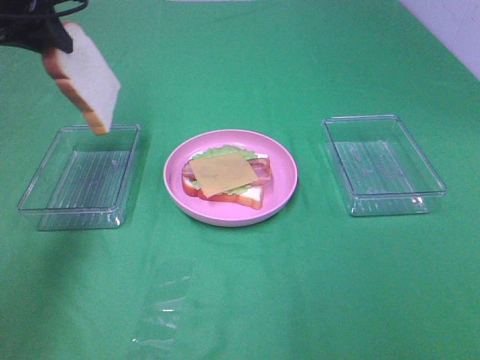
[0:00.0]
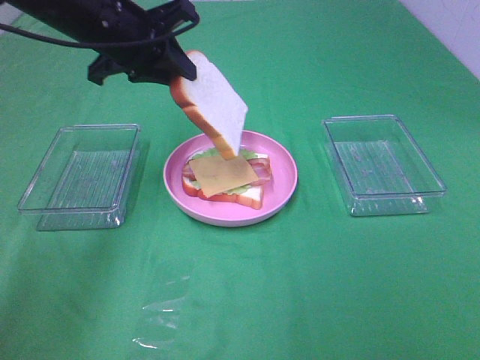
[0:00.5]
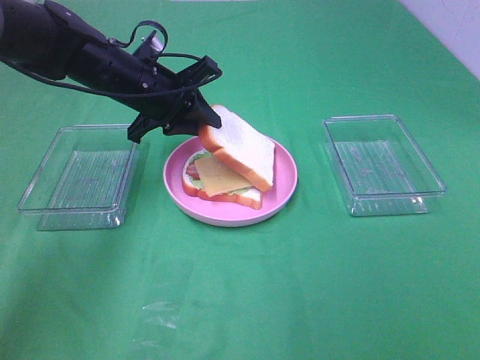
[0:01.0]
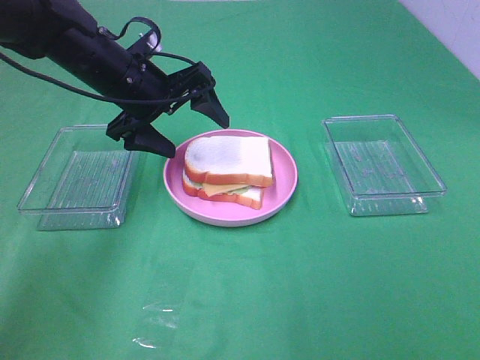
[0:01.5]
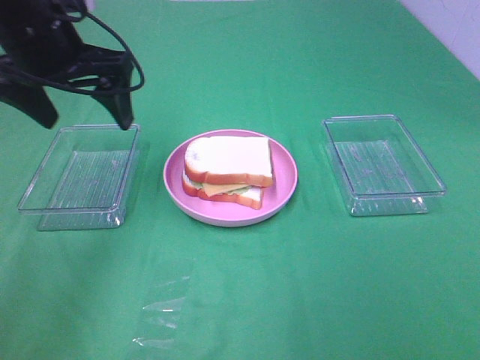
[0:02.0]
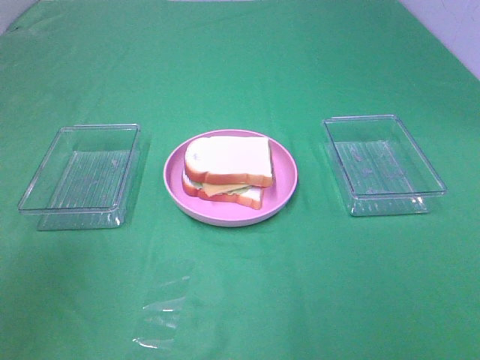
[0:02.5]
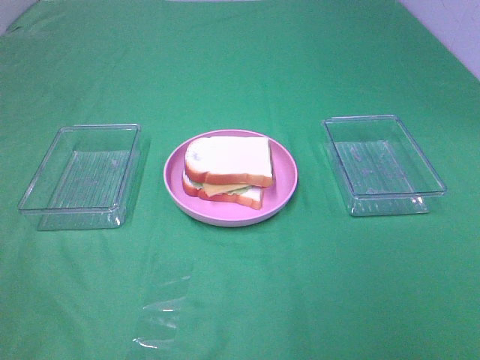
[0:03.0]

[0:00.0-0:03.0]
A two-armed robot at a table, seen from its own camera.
Task of the whole recording: Make sandwiches.
Step, 0:00.0 to 0:01.0: Left hand:place the bread slice on the cheese slice.
0:00.0 to 0:01.5: The left gripper shifts about 15 cm downward and to the right, and opens its fingers.
0:01.5 to 0:03.0: The left gripper is displaced backward and to the left by roughly 40 cm.

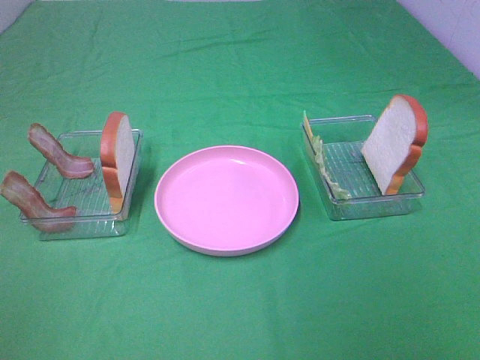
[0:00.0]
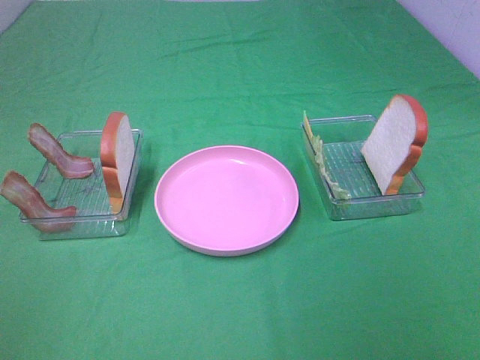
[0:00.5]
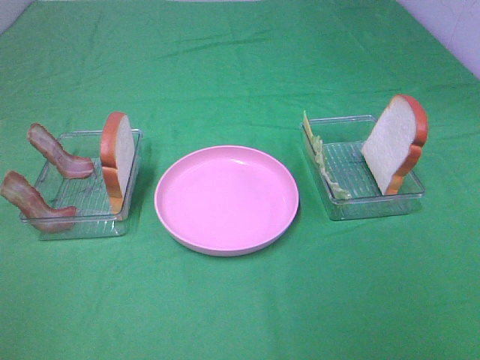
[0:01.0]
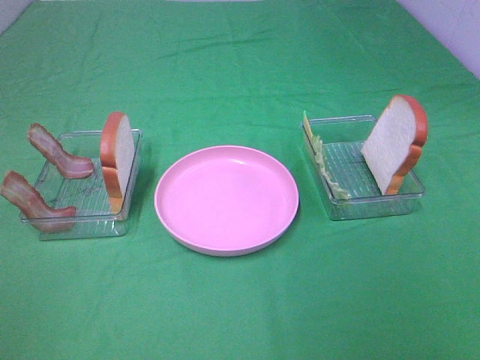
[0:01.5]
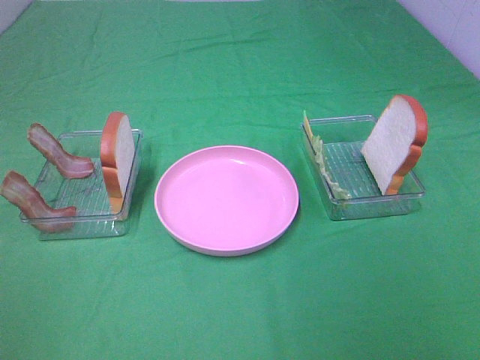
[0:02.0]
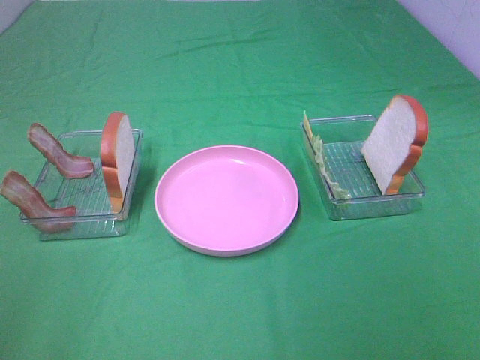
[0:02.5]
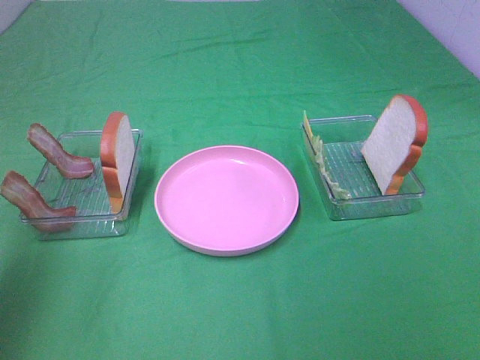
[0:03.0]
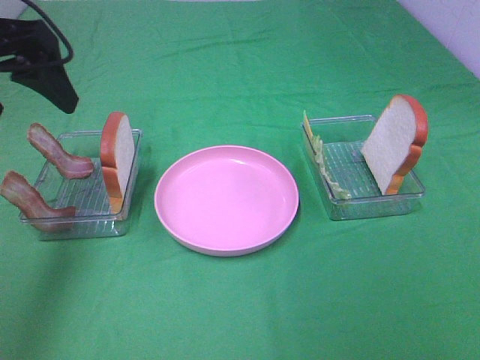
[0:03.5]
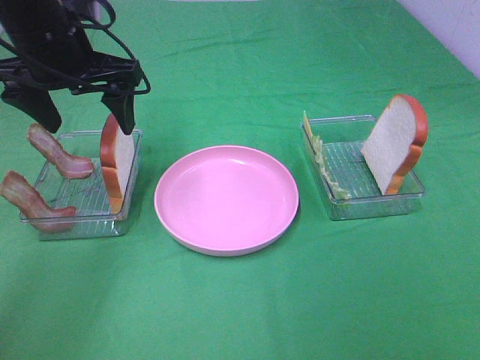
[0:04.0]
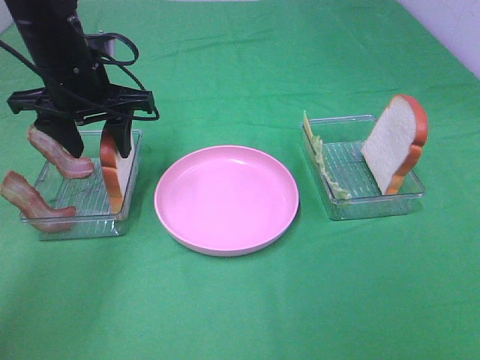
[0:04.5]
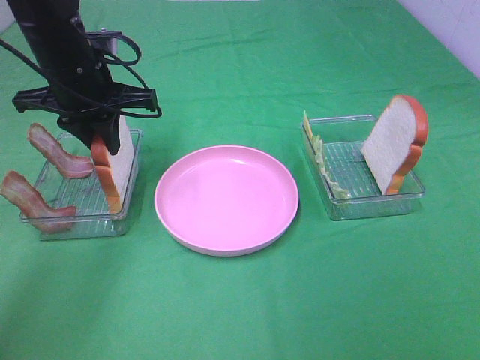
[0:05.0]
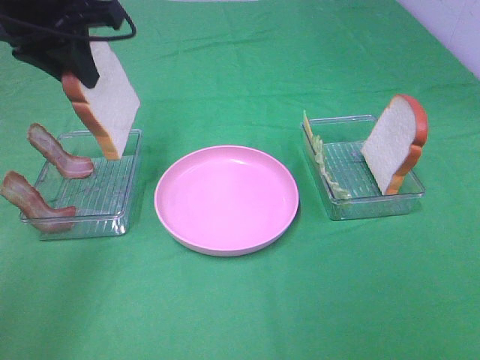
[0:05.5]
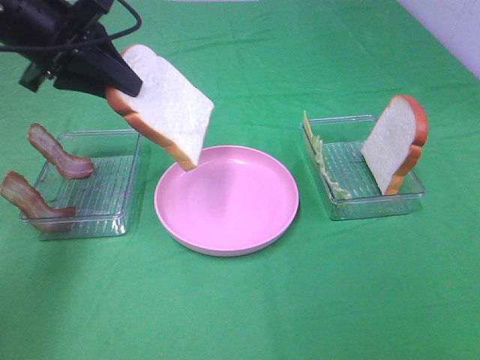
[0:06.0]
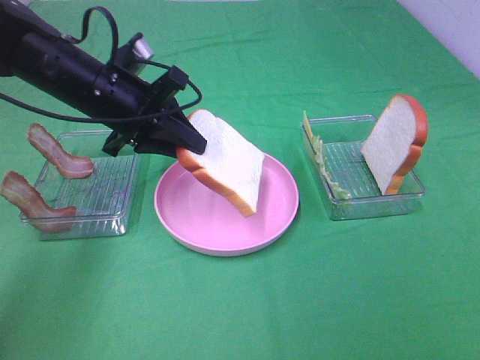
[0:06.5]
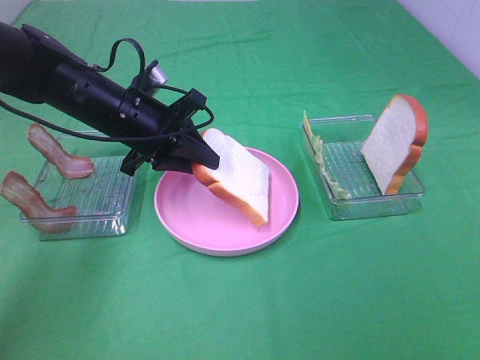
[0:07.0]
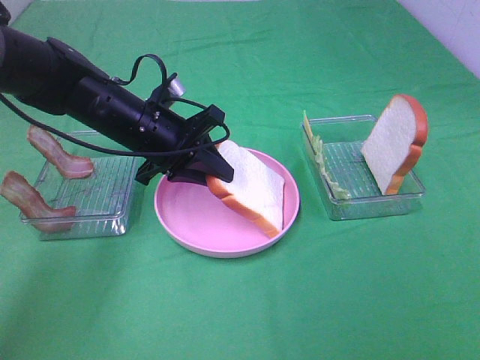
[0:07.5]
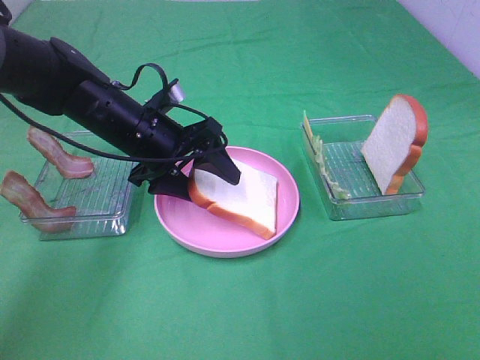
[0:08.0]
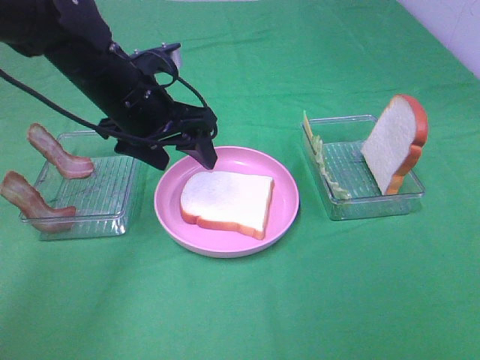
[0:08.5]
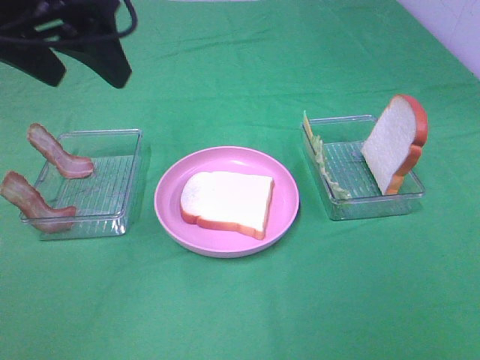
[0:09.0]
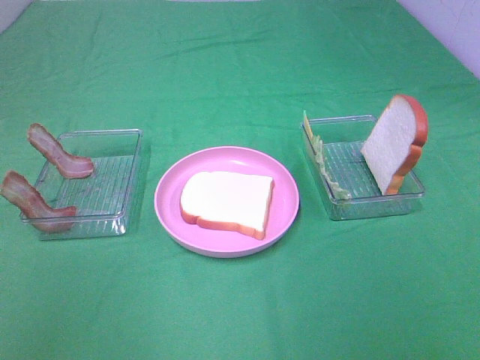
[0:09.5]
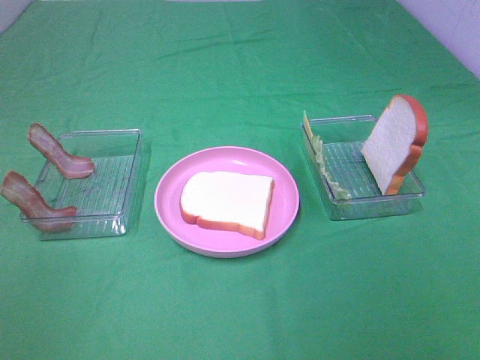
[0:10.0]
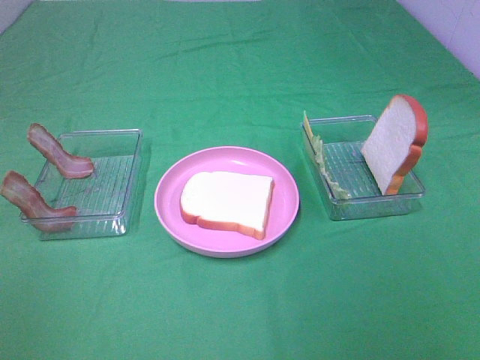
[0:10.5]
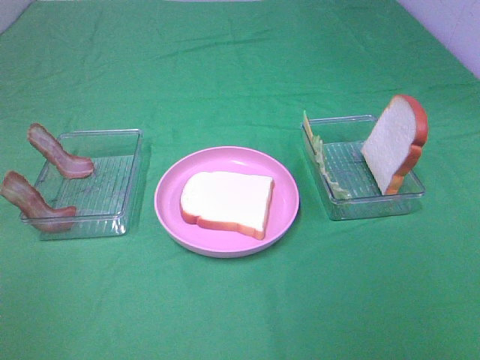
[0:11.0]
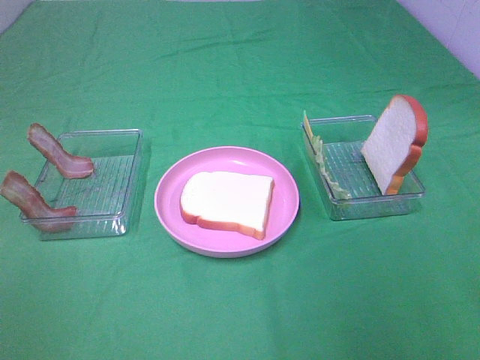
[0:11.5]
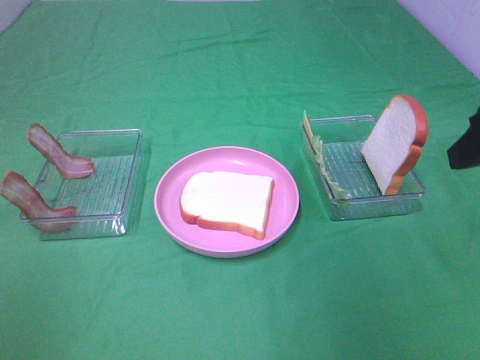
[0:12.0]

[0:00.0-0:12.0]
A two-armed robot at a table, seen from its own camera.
Task of the whole recording: Make sandwiches.
Step, 0:00.0 to 0:04.5: Left hand:grab the bread slice.
Step, 0:05.0 to 0:08.5: Left hand:place the bread slice on the plate.
0:00.0 to 0:02.0: Both grippers stay put.
0:02.0 to 0:04.0: The left gripper travels forward by roughly 35 cm.
0:04.0 to 0:06.0: The left gripper goes up and down, some 10 cm each way, reversing 2 times, and closes.
0:06.0 to 0:08.0: The left gripper travels downward and to the right by some 15 cm, and opens.
0:08.0 to 0:10.0: The left gripper moves backward, upward and to the left, roughly 40 cm.
0:10.0 to 0:12.0: The right gripper shifts about 25 cm forward.

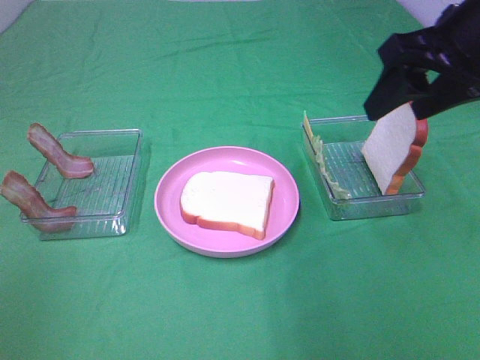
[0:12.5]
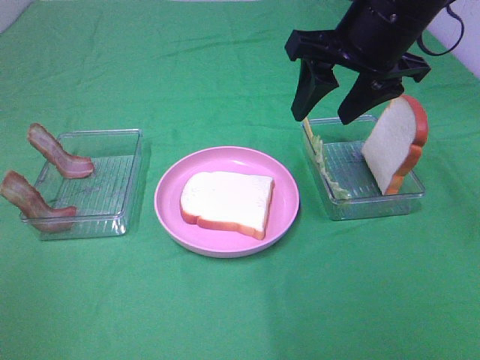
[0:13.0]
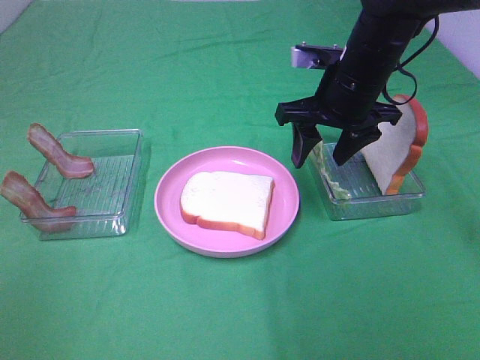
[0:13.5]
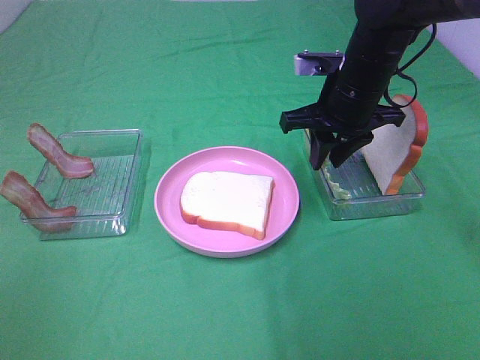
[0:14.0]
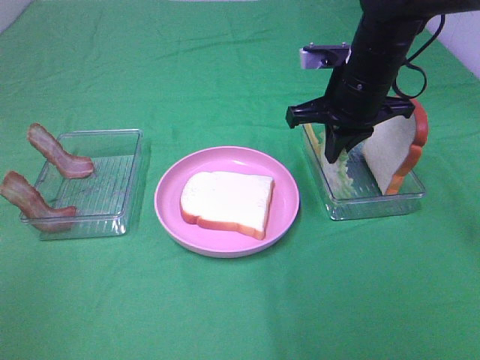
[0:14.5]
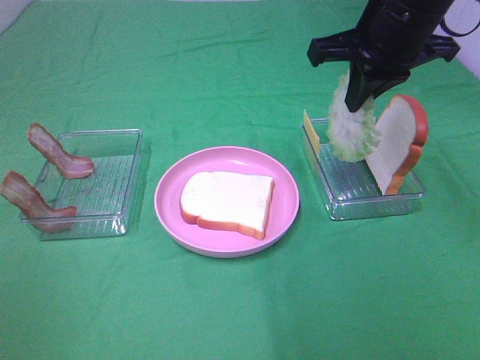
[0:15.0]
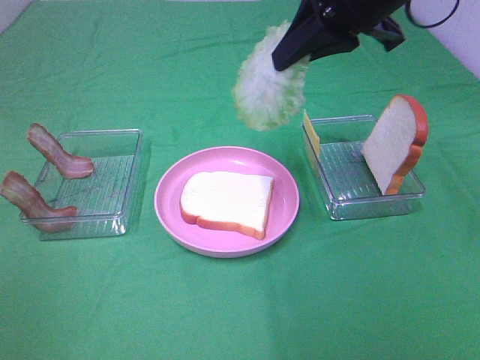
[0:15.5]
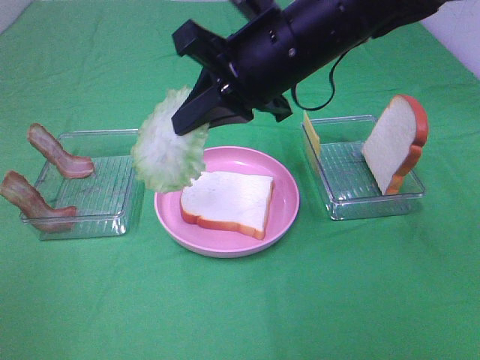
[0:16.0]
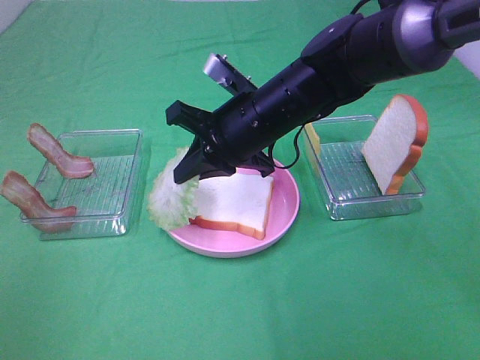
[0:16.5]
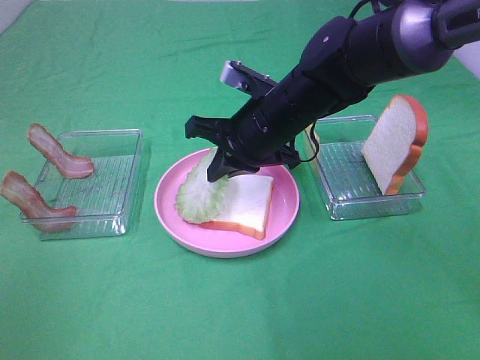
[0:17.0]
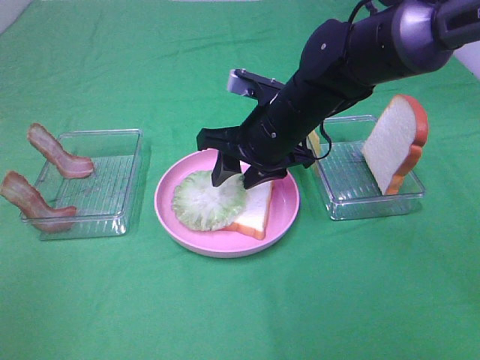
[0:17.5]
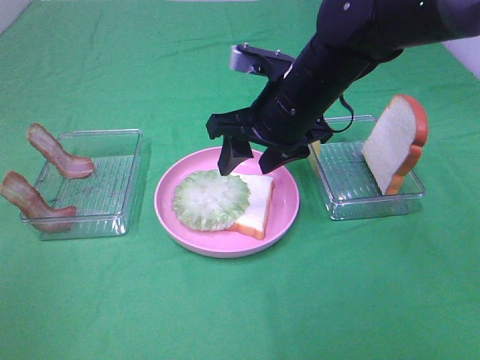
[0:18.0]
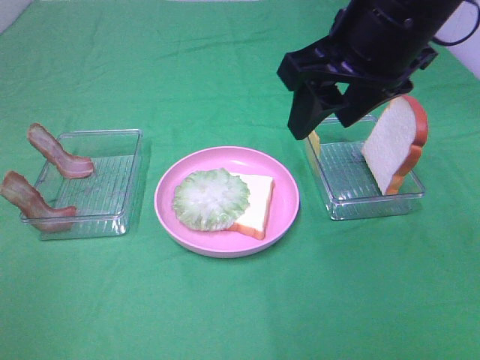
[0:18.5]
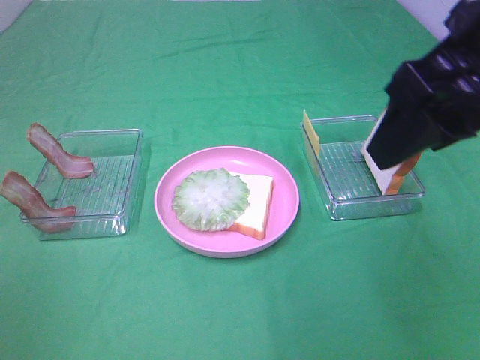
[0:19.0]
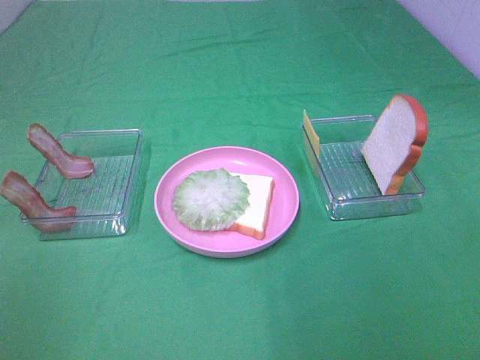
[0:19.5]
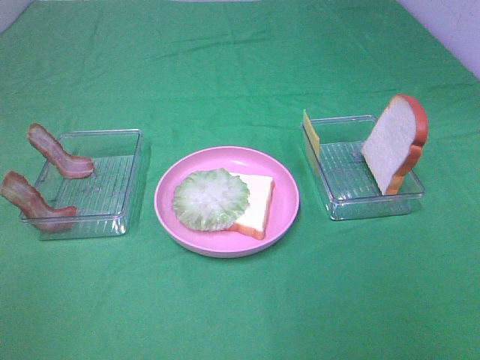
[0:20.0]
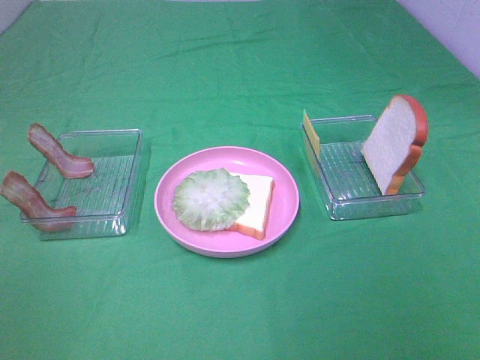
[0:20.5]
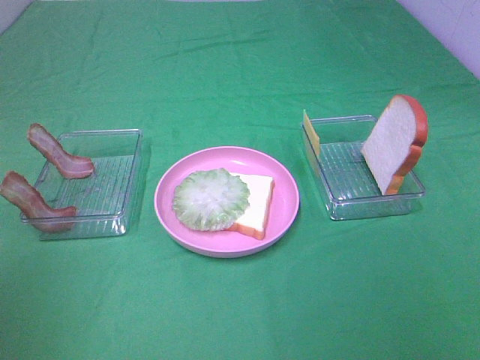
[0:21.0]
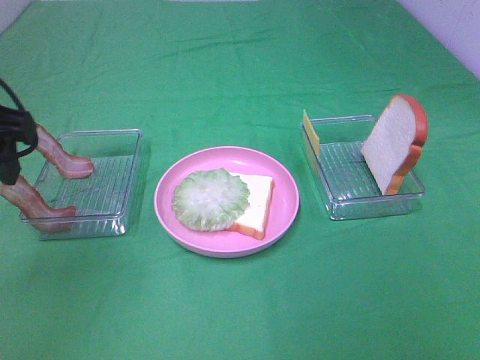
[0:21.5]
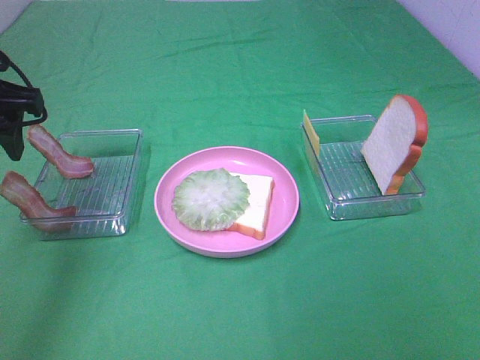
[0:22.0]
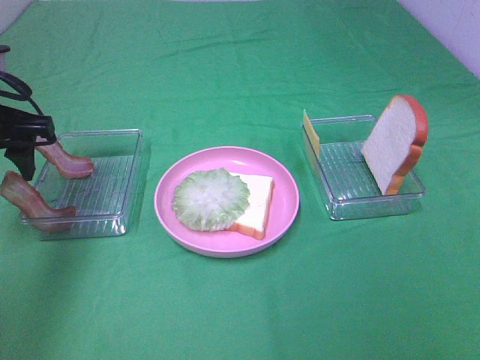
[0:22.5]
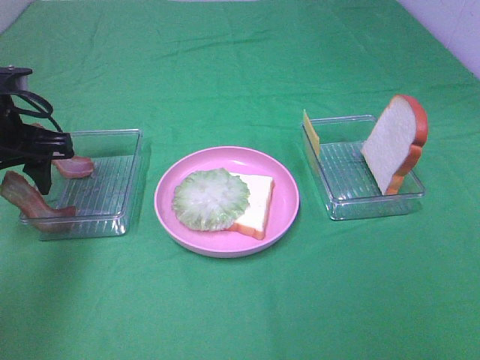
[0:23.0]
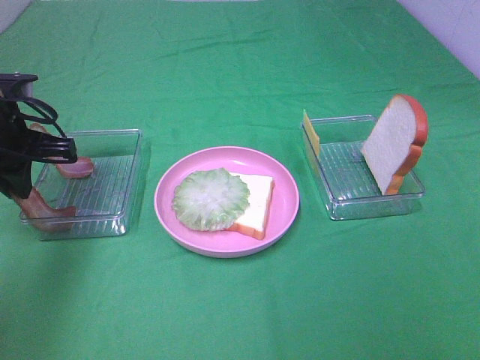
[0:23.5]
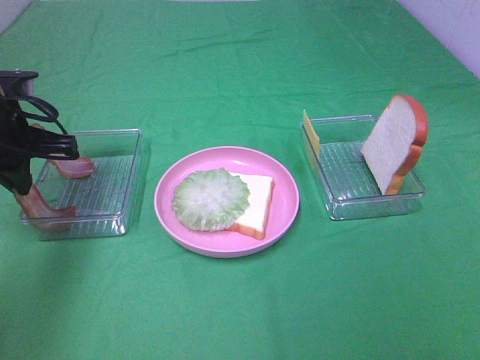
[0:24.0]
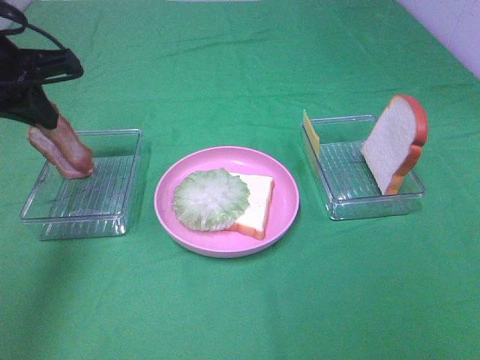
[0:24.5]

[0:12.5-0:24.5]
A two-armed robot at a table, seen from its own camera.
Task of the whole recording: Make sandwiches.
Step, 0:14.5 to 0:17.5: Right hand:place the lettuce slice on the bread slice.
Step, 0:18.0 to 0:23.5: Left hand:grab the bacon.
0:12.5 to 0:14.5: The right gripper goes some 15 cm downward, forward and to the left, and closes up.
0:14.5 to 0:16.5: The right gripper travels to the left by roughly 10 cm, and travels upward and back again, about 15 cm each way.
0:16.5 to 0:18.5: The right gripper heads upward, to the right and backward, covering some 20 cm, and opens its fingers.
0:18.5 to 0:20.5: The right gripper shifts some 35 cm backward and to the right.
0:20.5 to 0:22.5: The left gripper shifts some 30 cm forward.
0:22.5 to 0:24.5: The left gripper ends up some 5 cm from where it was, and closes up.
